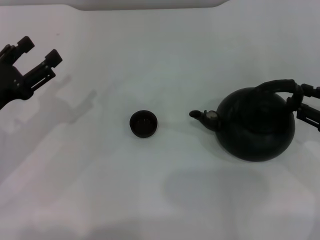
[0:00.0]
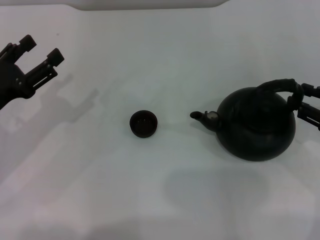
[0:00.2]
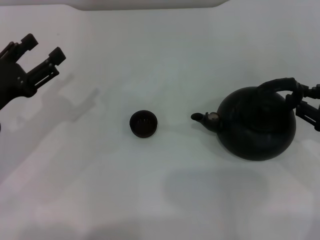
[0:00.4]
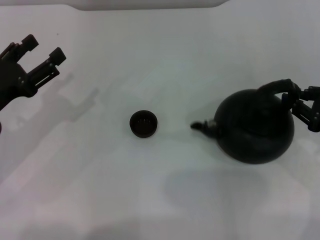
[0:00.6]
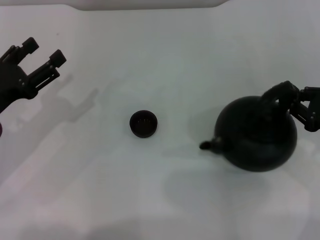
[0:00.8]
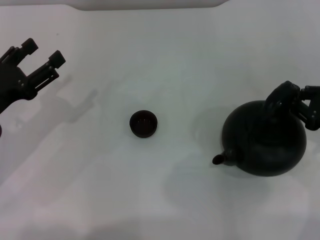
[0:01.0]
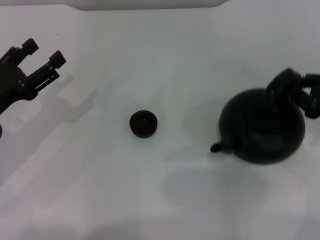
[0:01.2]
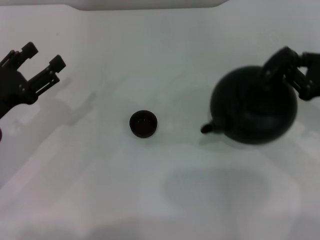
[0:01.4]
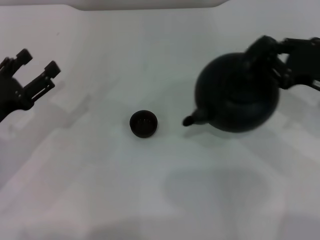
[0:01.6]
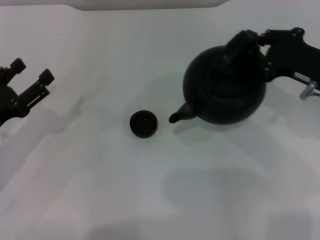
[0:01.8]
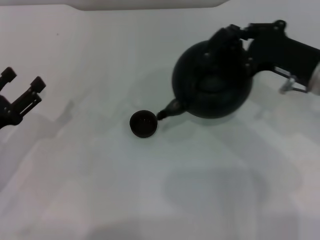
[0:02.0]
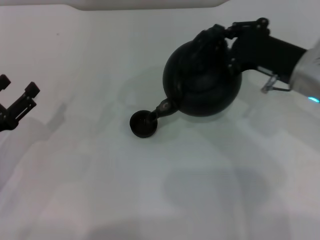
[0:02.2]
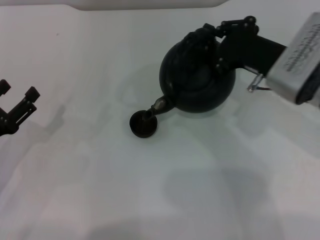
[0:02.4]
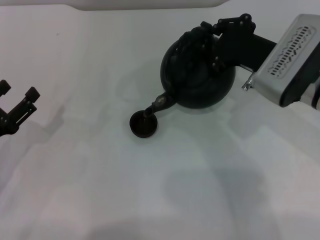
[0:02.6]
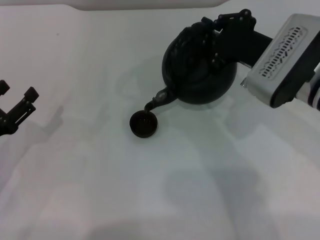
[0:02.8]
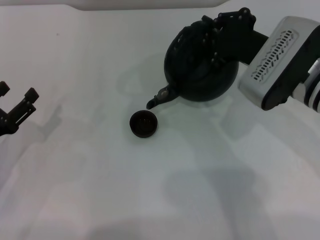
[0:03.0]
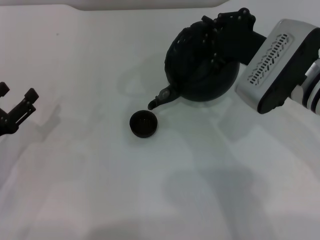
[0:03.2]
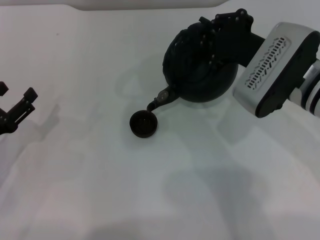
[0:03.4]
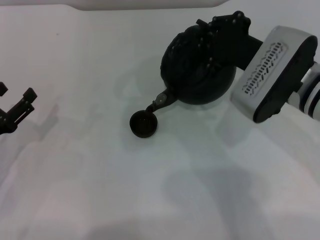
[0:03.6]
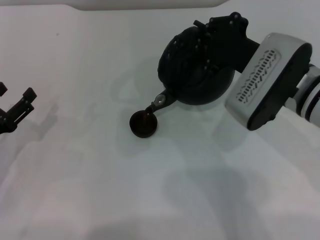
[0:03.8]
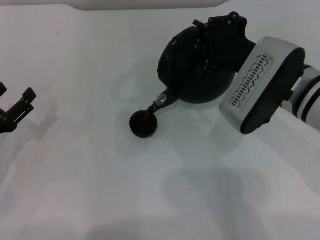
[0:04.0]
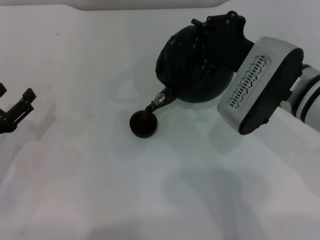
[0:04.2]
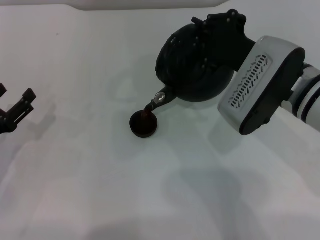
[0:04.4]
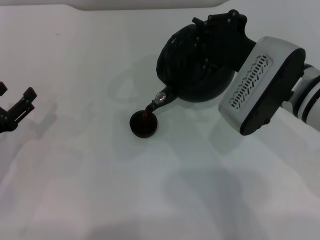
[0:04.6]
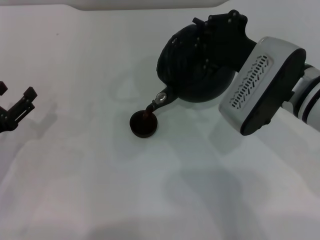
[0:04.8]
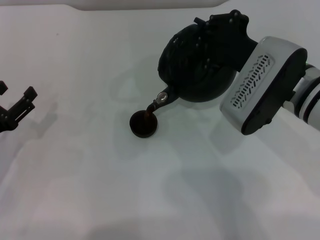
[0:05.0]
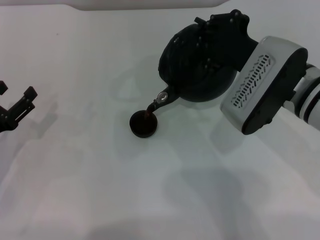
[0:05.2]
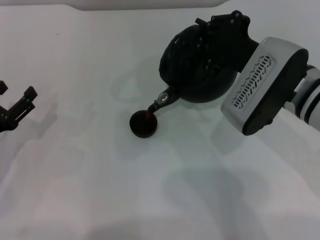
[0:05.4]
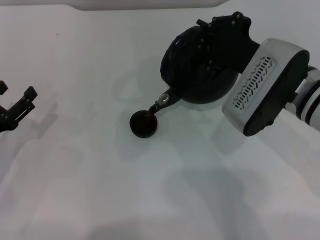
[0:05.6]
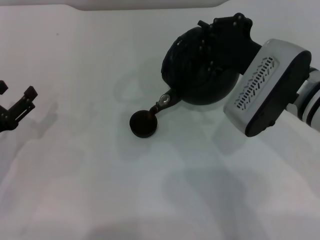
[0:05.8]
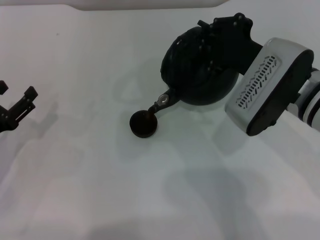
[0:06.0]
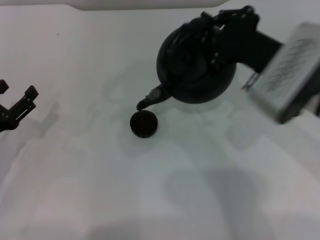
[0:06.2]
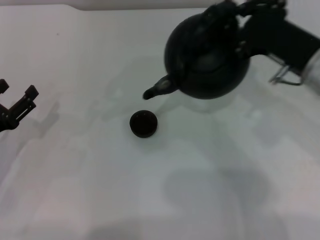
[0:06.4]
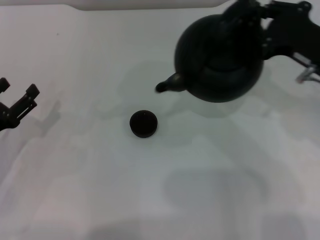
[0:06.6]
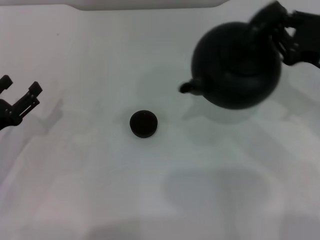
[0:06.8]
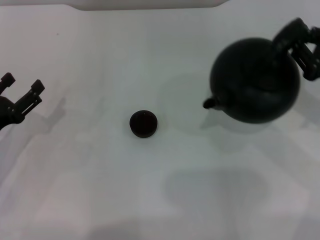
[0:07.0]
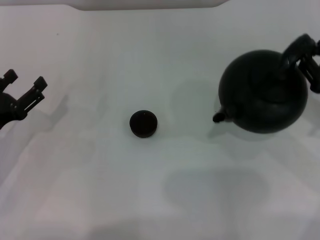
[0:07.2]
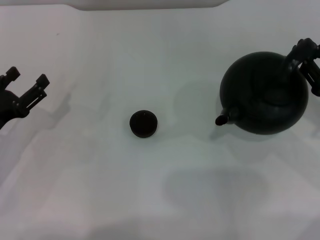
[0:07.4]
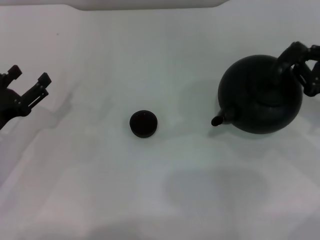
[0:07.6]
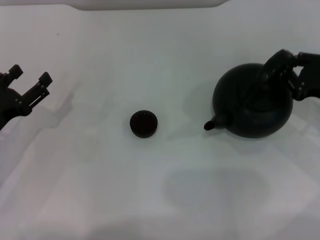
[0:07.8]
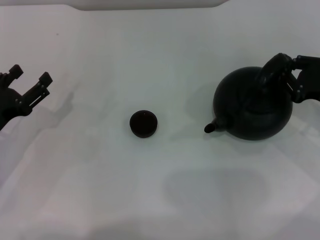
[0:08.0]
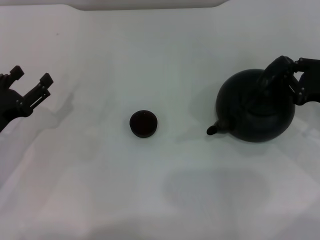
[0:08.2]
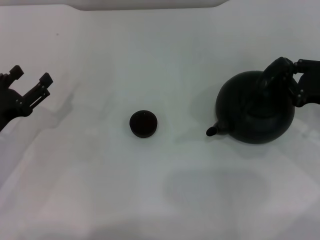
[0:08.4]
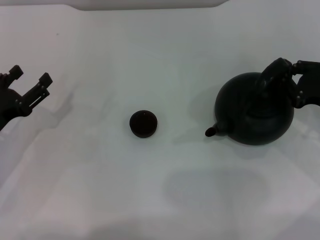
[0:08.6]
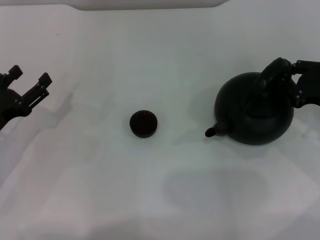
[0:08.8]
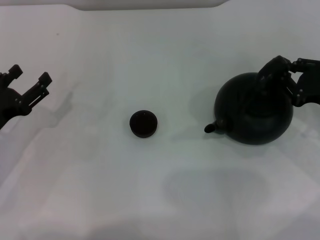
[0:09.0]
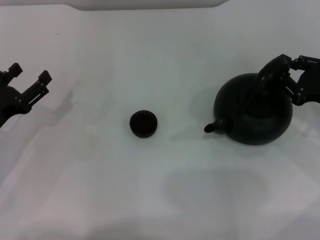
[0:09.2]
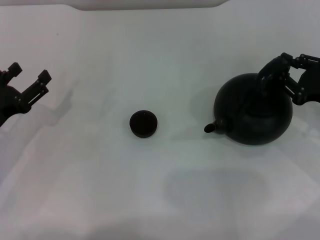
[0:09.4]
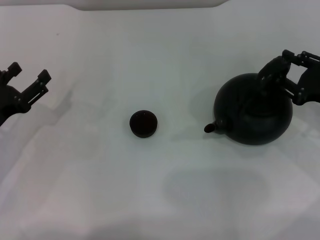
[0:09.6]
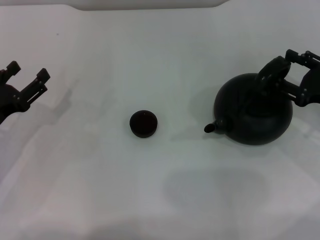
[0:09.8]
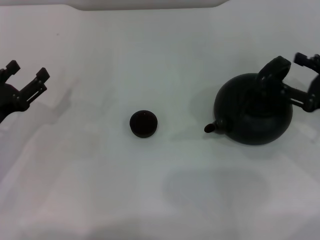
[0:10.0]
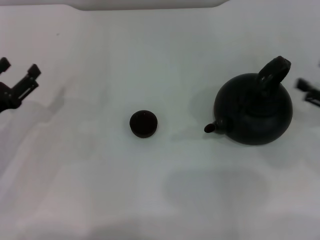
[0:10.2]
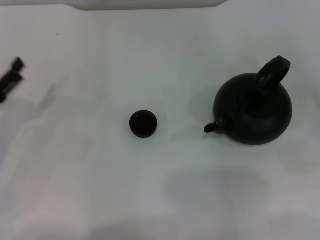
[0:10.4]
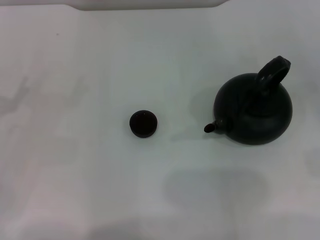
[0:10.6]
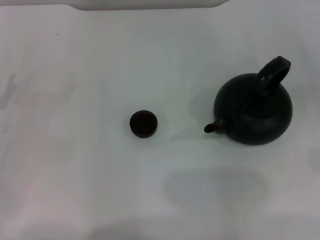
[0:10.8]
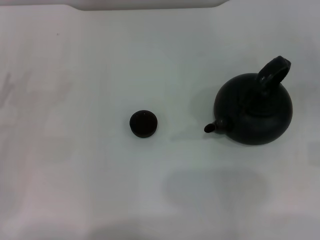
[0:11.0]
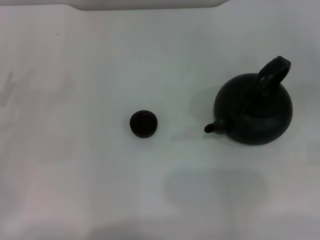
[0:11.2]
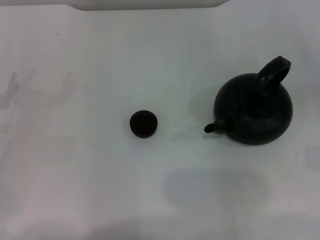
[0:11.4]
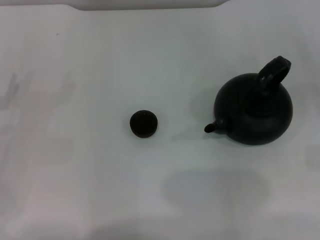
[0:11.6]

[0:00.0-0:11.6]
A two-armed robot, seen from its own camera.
Task of the whole recording: Grasp the handle of the teapot with one hand and pour tea into the teacup.
Step, 0:01.6 to 0:06.4: Pour tea into the teacup with the right gripper.
Step, 0:06.6 to 0:10.0: Put down the teapot with the right gripper.
0:00.0 to 0:01.4: The right gripper closes.
0:01.4 to 0:02.8: The left gripper shifts by some 5 cm. The right gripper goes approximately 15 cm to the left.
0:02.8 to 0:04.4: The grippers move only a little.
0:04.4 to 0:05.8: Both grippers stay put.
0:05.8 to 0:07.2: The right gripper goes some 15 cm to the right.
0:07.2 to 0:08.8: The grippers make only small movements.
0:08.8 to 0:10.2: The right gripper opens up.
